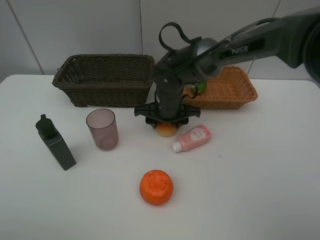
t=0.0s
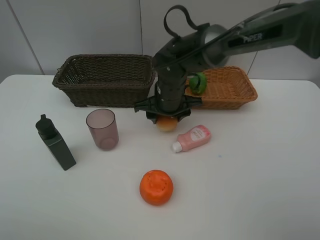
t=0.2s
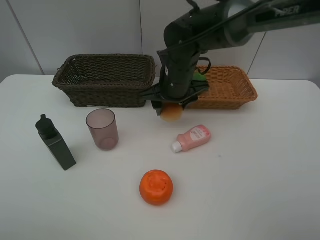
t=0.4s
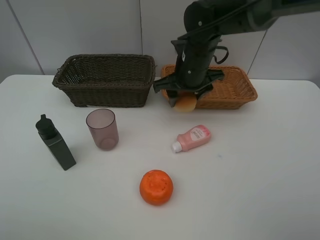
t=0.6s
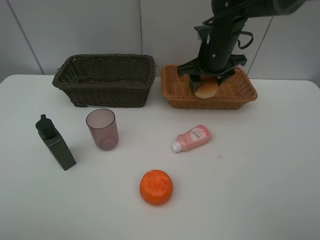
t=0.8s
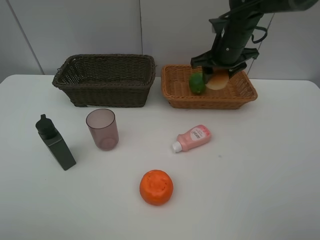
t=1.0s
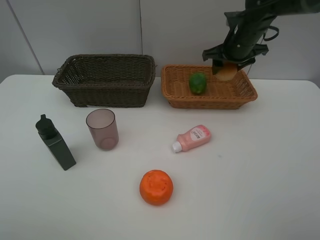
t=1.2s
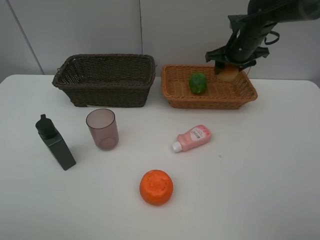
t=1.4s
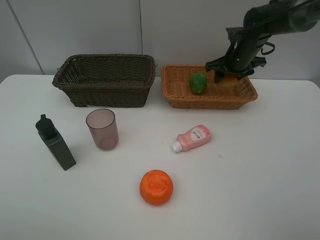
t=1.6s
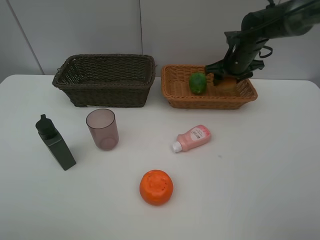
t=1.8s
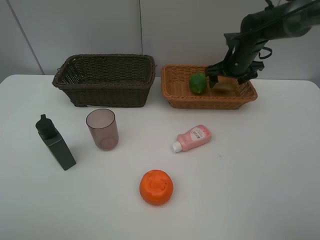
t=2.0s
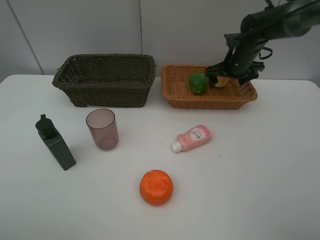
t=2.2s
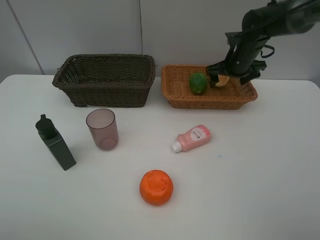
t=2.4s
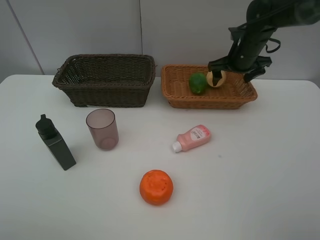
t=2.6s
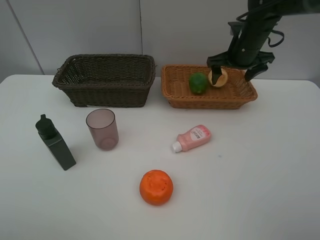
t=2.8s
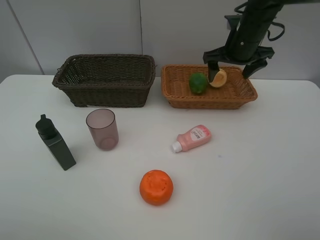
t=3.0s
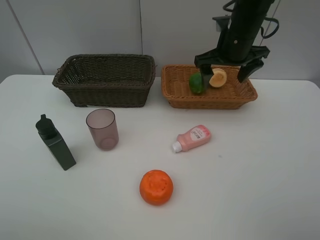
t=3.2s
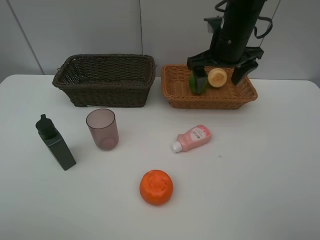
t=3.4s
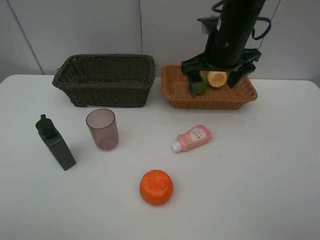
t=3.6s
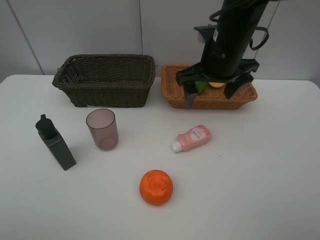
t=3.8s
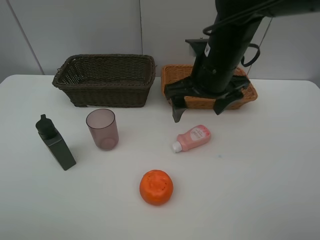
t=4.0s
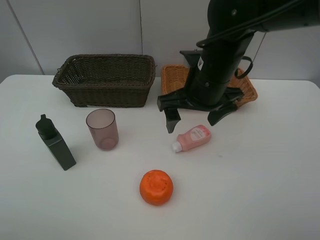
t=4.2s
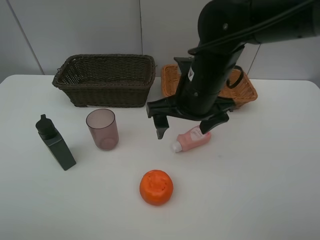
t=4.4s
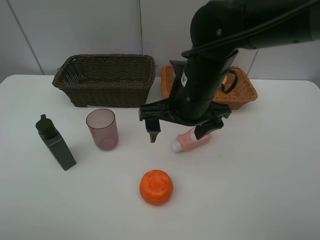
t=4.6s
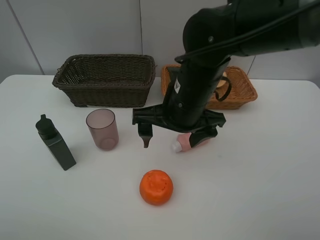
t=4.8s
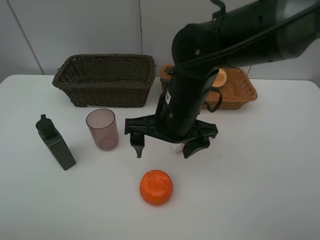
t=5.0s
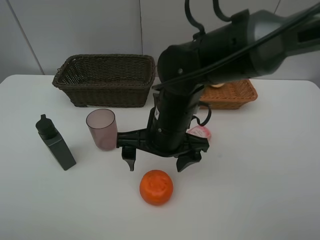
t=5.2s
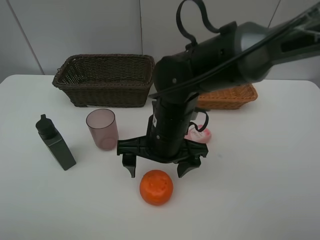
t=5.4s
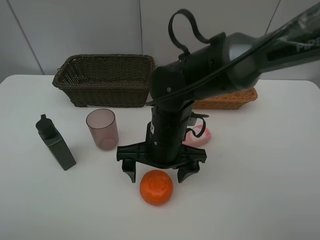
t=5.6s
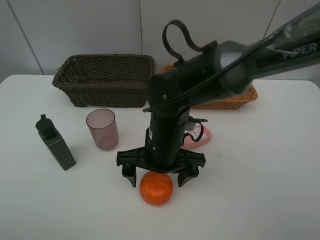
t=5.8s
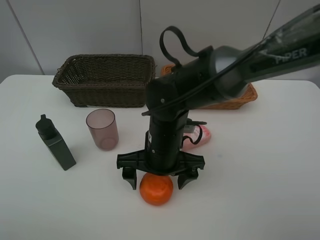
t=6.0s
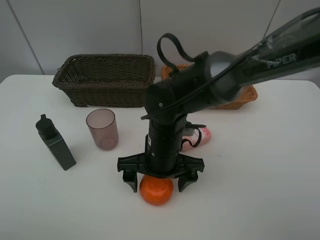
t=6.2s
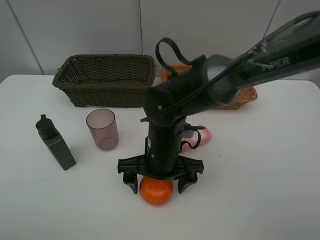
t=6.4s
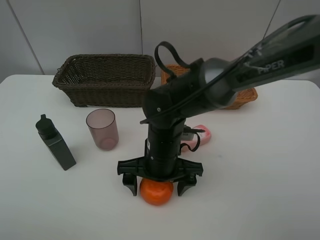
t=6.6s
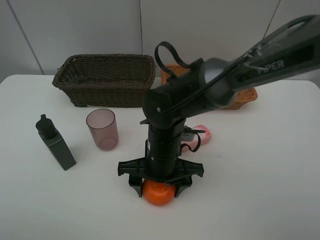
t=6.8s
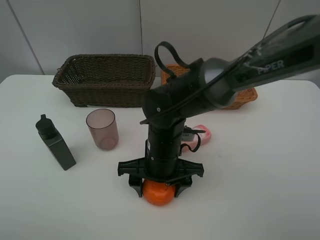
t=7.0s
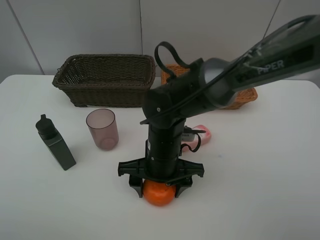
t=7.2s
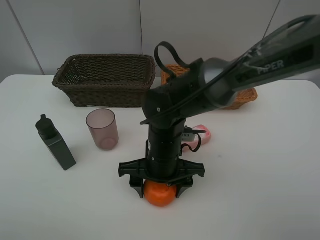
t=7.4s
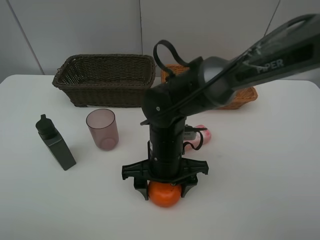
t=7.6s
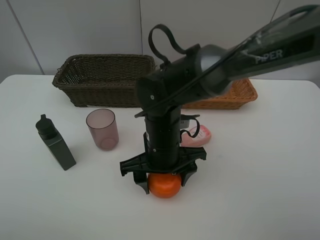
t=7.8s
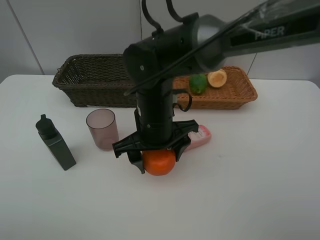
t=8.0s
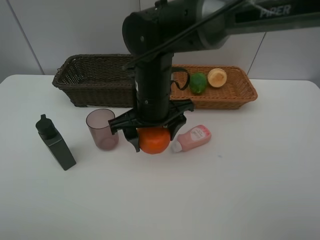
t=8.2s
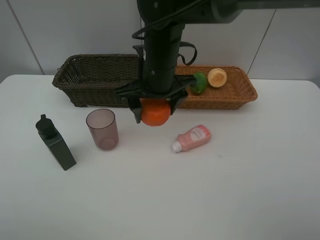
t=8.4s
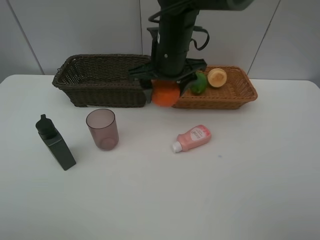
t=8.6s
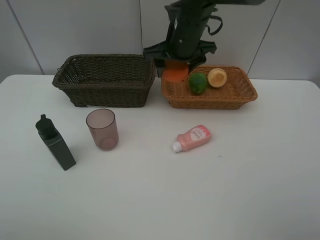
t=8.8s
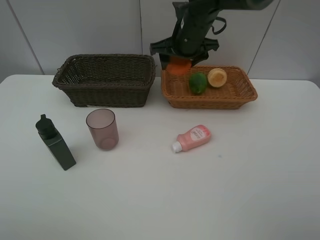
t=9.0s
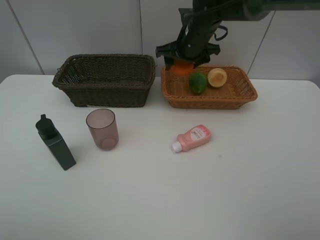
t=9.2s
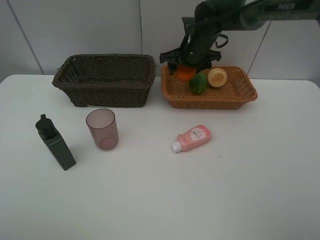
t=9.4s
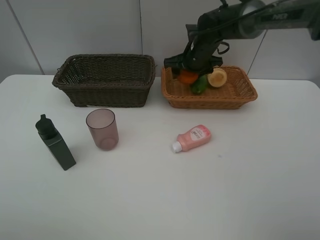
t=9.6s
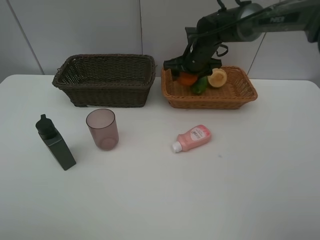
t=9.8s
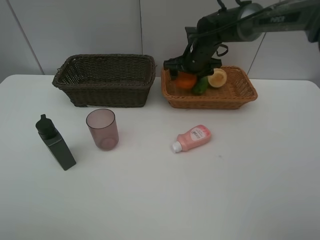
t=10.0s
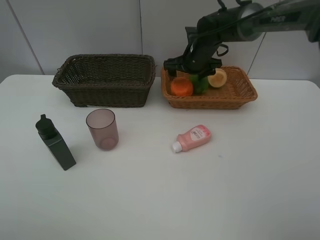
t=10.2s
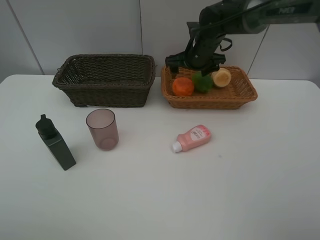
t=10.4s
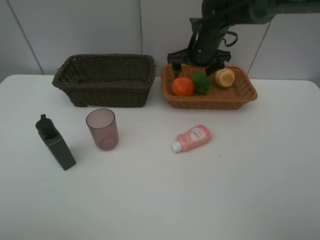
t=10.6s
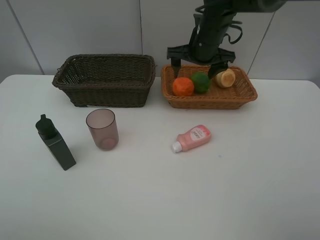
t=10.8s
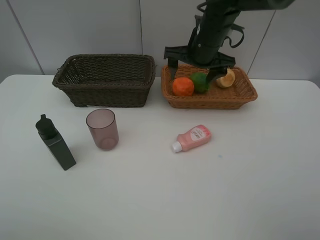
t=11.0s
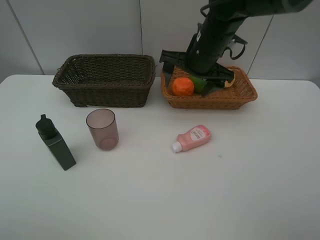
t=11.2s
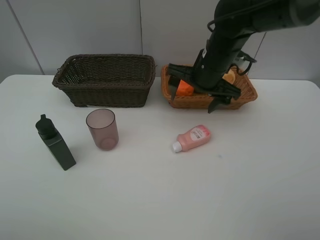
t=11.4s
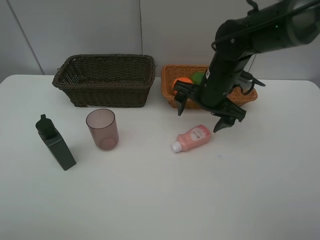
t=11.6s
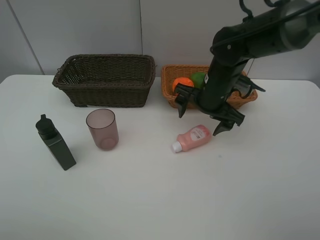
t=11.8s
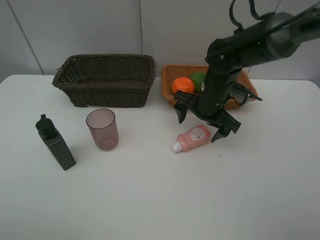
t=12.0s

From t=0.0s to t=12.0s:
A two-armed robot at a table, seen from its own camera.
Task of the whole recording: place multiple objects separately in different baskets.
Step, from t=0.6s to t=2.2s: Place the bread in the light basket with right gripper.
Step, from t=2.4s to t=7.8s: Pick up the orange with right gripper.
Step, from t=8.0s to t=10.4s: Place the orange in the light basket with right gripper.
From t=0.0s to t=1.6s: The right gripper is displaced to the right and forward by about 20 cm.
From t=1.6s to t=3.0s: The right gripper is displaced upward and backward by some 10 cm, and opens.
From t=3.0s to t=4.4s: The right gripper moves backward and to the left, approximately 20 cm.
From t=4.4s to t=6.0s: The right gripper moves downward and to the left, approximately 10 cm.
From t=6.0s to t=7.6s: The right gripper closes its fingers.
From t=7.6s to t=9.0s: The right gripper heads forward and upward, covering about 25 cm.
From t=9.0s to t=10.4s: The right gripper shifts by roughly 5 cm, and opens up.
From t=10.4s to t=12.0s: The right gripper goes approximately 15 cm backward and downward.

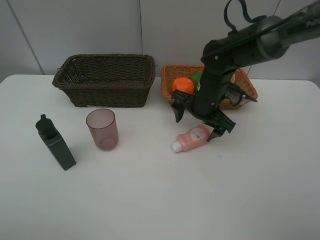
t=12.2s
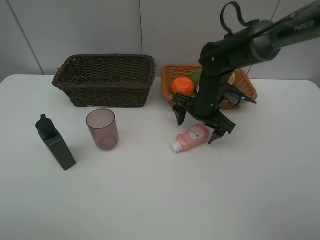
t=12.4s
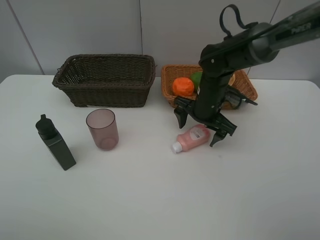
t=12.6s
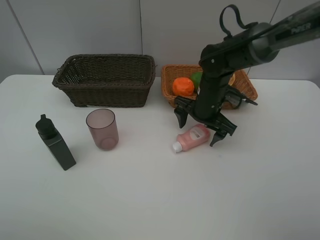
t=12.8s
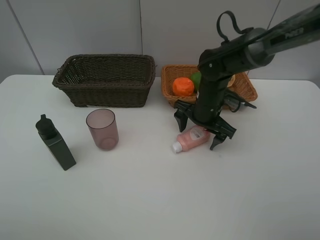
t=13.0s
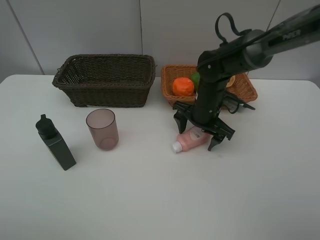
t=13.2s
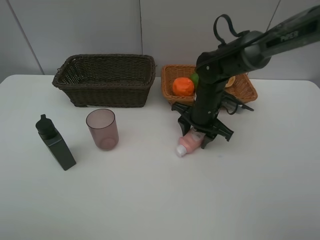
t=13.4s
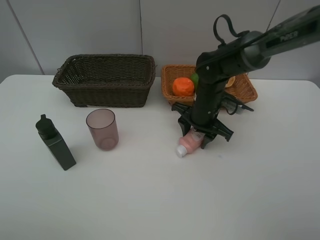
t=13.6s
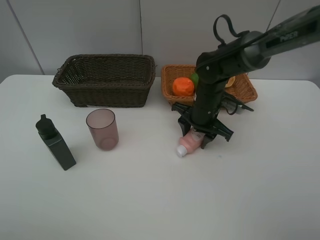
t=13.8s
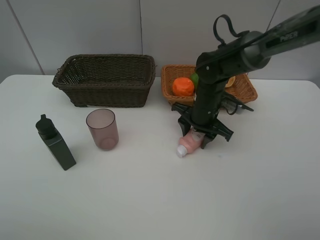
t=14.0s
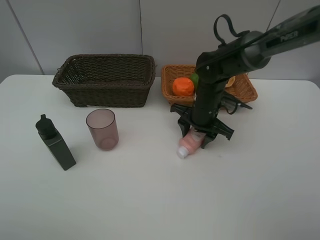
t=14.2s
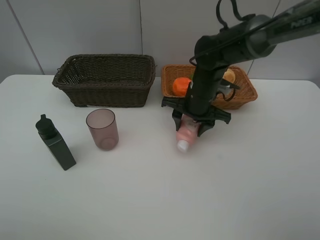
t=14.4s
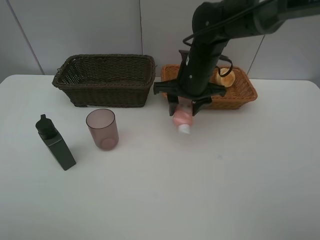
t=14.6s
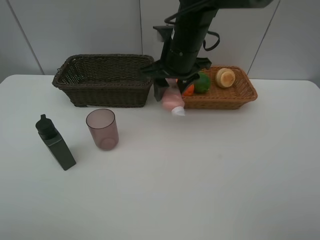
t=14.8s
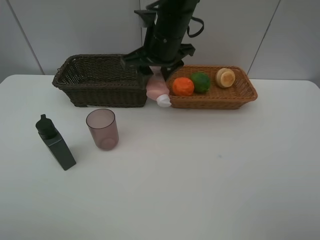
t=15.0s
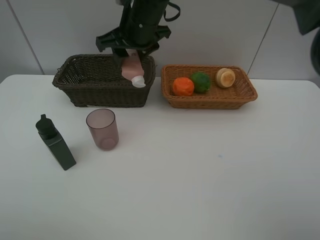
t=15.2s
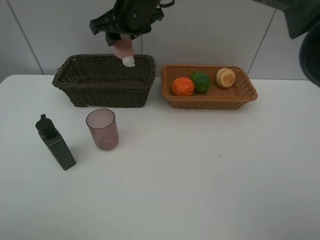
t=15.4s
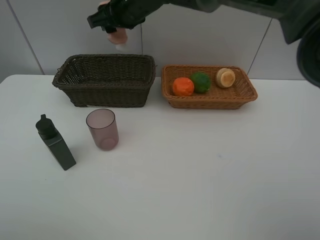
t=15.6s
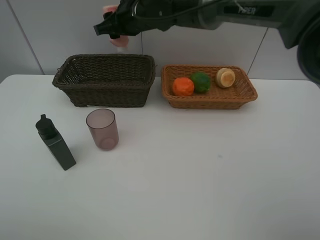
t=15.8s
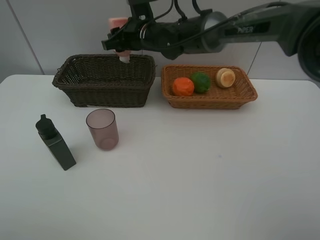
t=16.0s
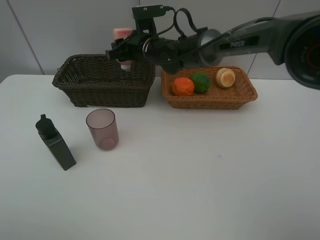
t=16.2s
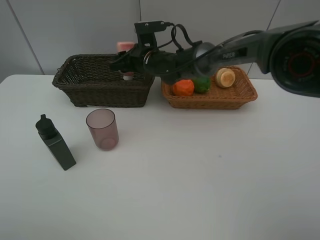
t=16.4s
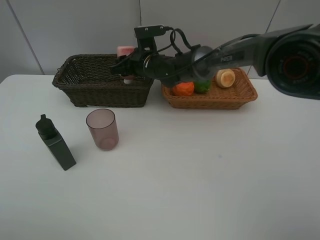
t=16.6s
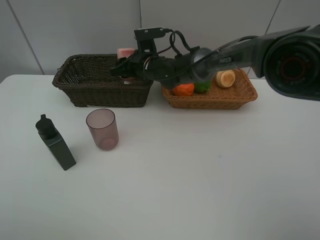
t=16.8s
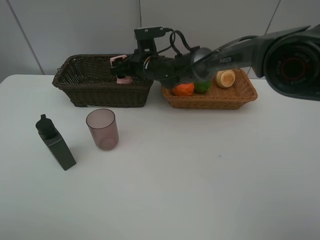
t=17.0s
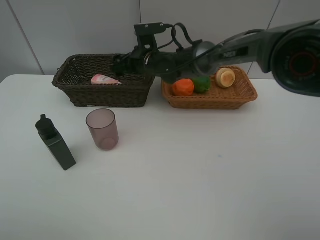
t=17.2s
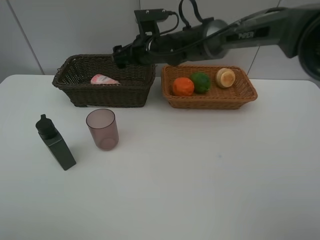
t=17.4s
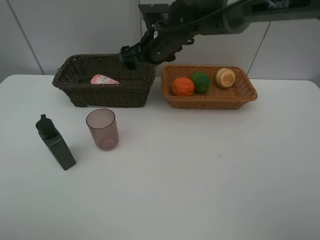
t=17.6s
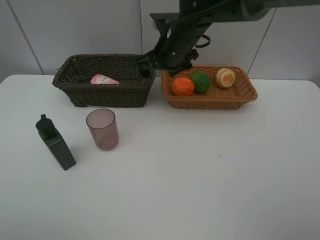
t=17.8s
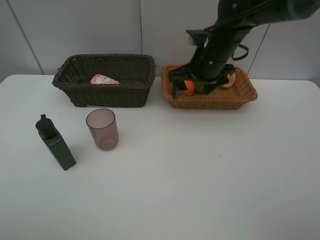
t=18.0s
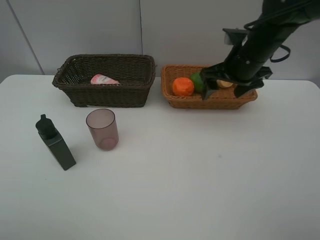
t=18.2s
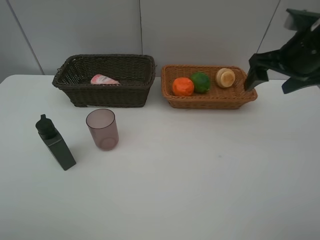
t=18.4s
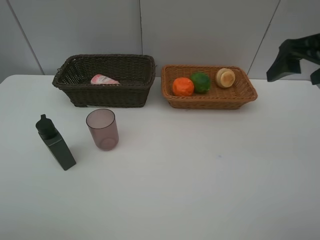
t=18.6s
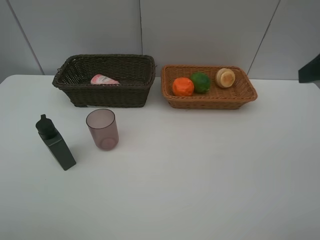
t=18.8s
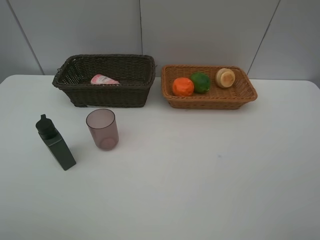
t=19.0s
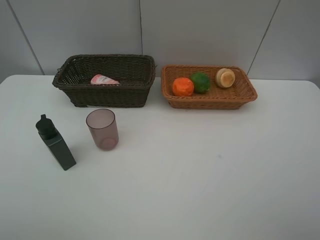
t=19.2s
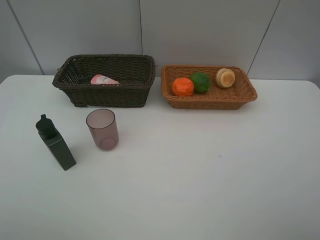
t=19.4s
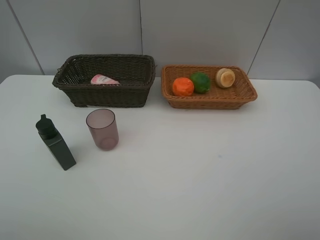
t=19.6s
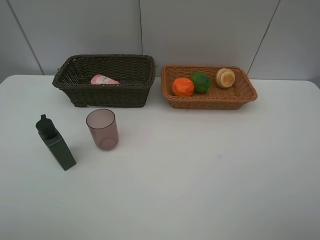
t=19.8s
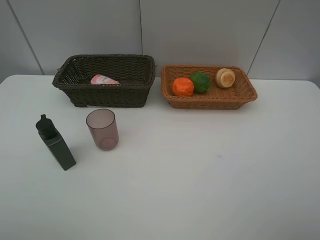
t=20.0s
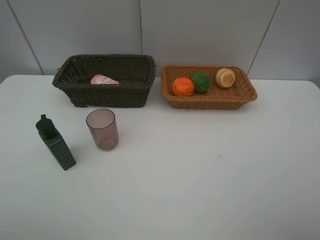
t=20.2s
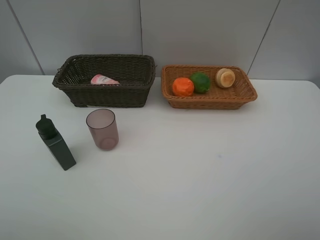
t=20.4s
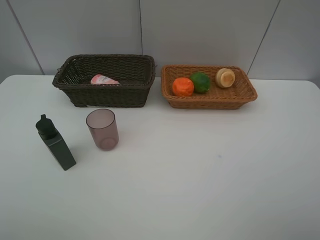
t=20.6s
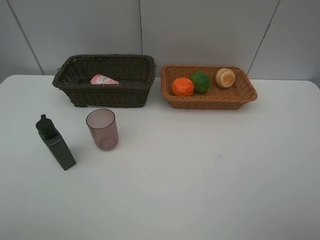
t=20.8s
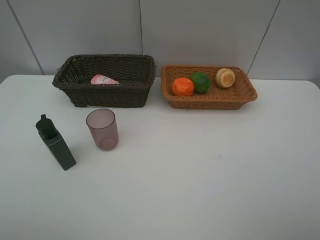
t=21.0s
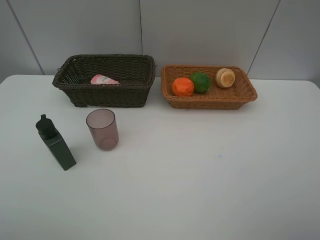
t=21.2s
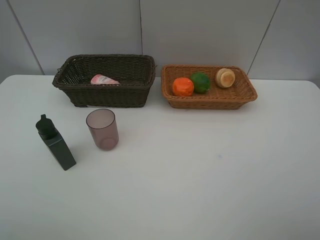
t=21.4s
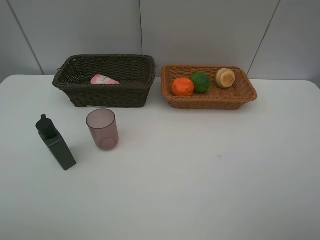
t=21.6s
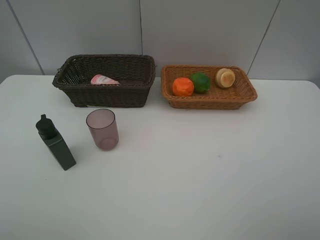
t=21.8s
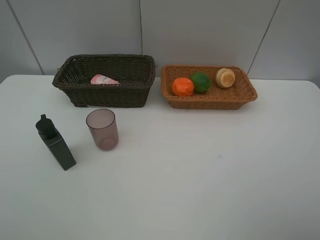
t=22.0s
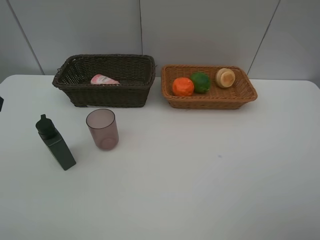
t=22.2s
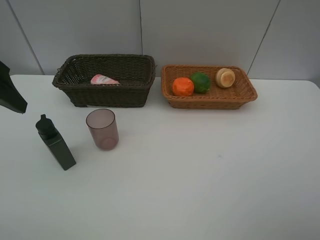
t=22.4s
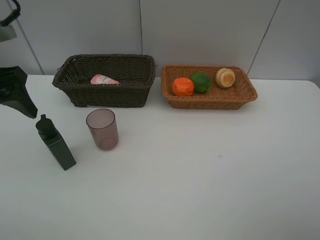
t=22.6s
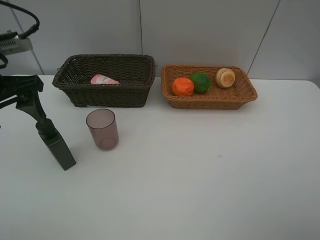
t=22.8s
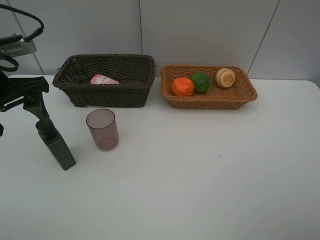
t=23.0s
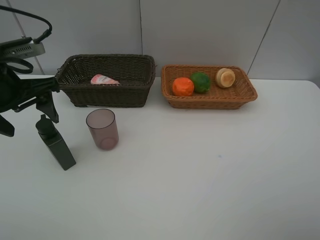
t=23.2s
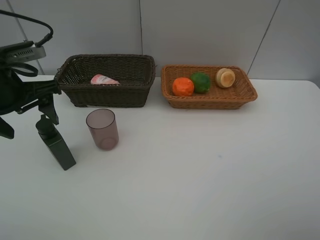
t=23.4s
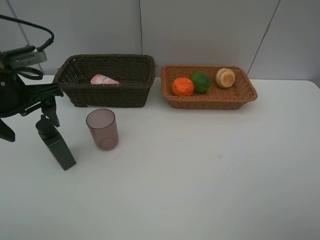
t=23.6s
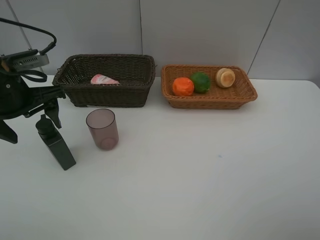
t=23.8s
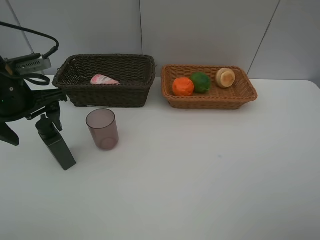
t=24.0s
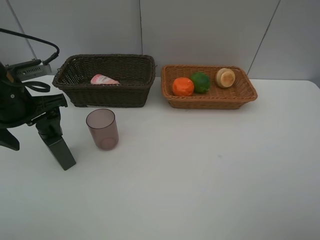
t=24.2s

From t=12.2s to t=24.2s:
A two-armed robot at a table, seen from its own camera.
Task of the whole recording: place multiple objects separately in different baskets.
Step, from t=12.2s to t=14.4s: Pick up the laundry detergent with right gripper.
From t=12.2s to t=13.8s: The right gripper closes.
From t=13.8s to t=15.2s: The right gripper is displaced upward and to the left by about 25 cm.
From t=15.2s to t=16.6s: The right gripper heads downward, covering approximately 15 cm.
From t=16.6s to t=18.2s: The right gripper travels to the right, backward and upward by about 25 cm, and opens its fingers.
From t=18.2s to t=19.8s: The right gripper shifts about 35 cm backward.
From t=21.2s to t=22.6s: The left gripper shifts about 25 cm forward.
From t=22.6s to t=24.2s: The left gripper heads downward, covering roughly 5 cm.
